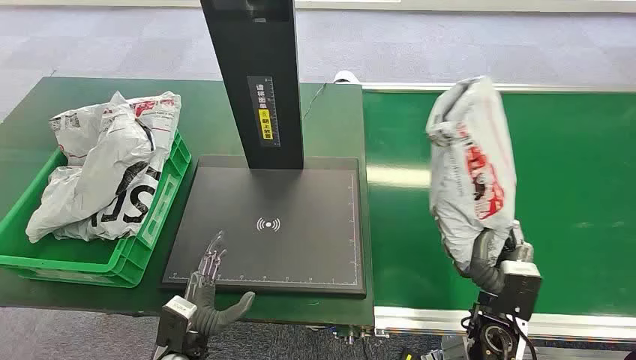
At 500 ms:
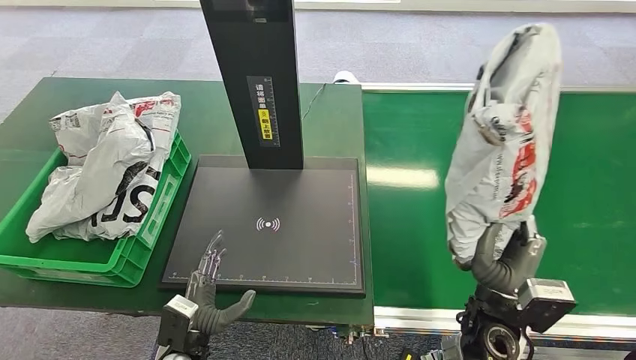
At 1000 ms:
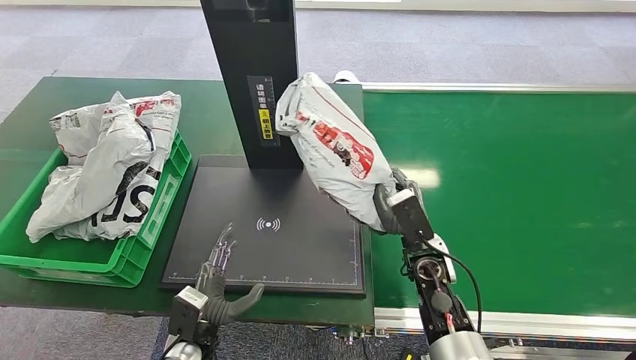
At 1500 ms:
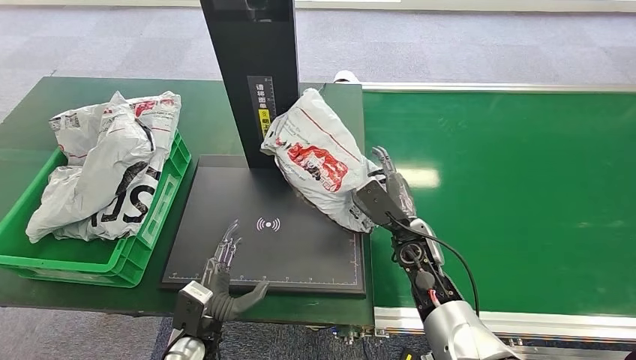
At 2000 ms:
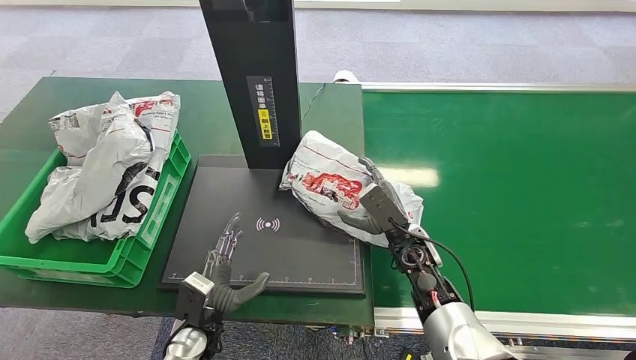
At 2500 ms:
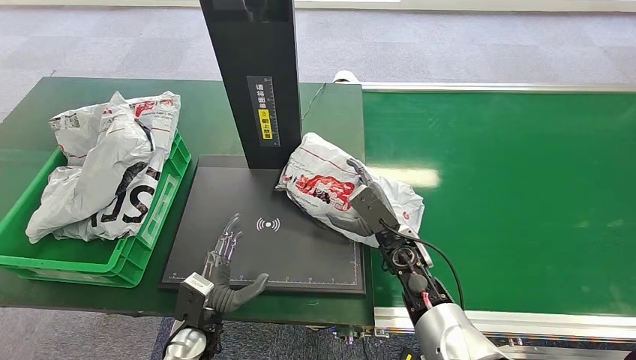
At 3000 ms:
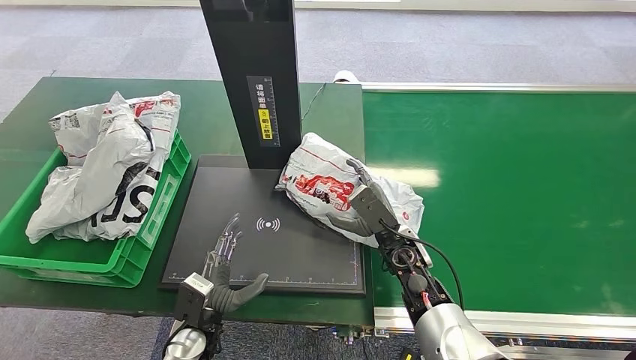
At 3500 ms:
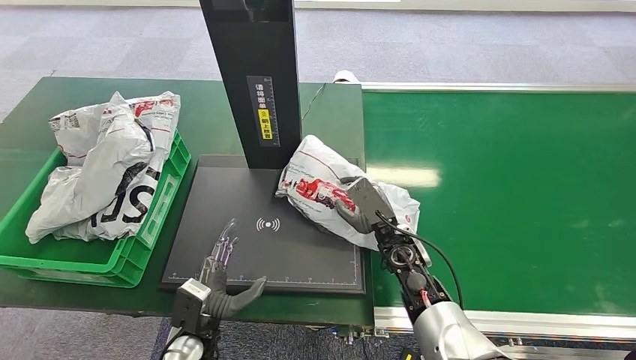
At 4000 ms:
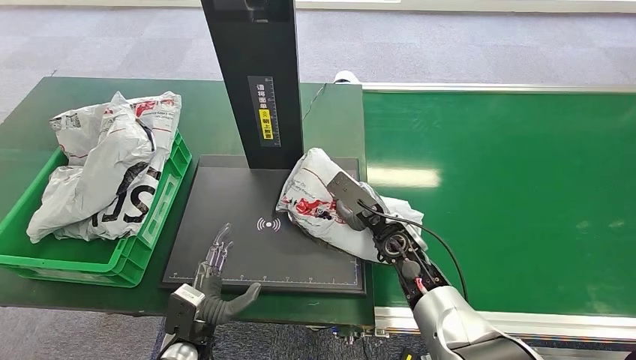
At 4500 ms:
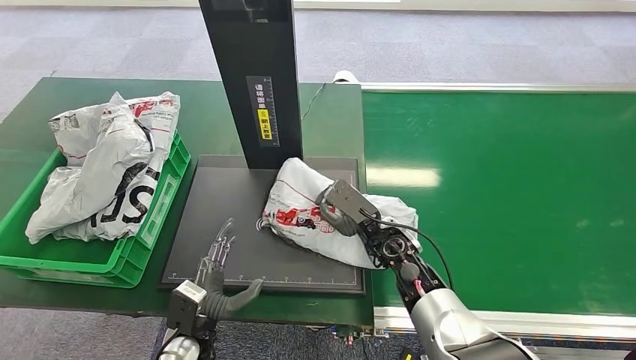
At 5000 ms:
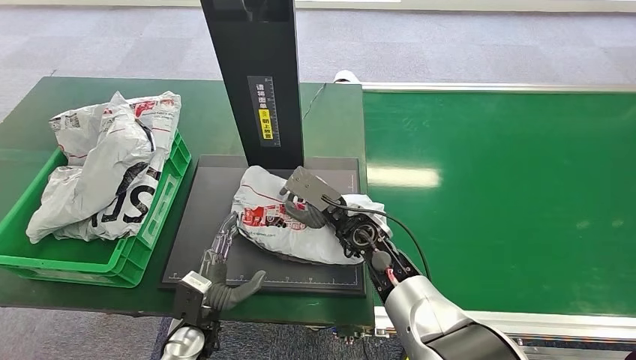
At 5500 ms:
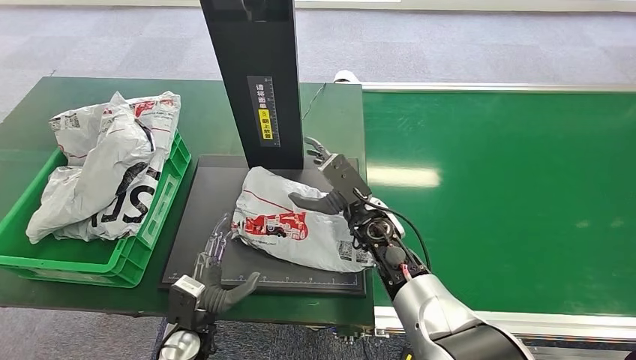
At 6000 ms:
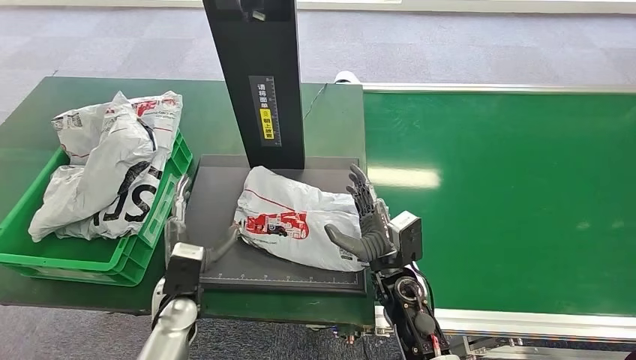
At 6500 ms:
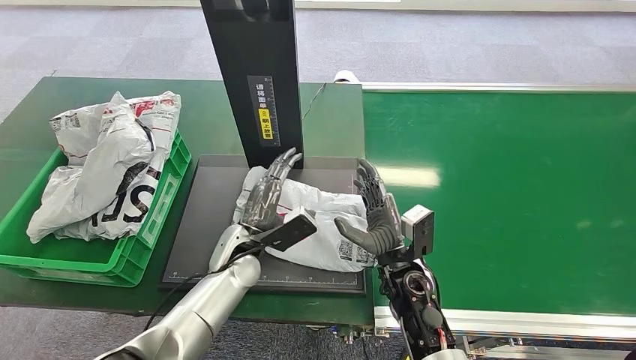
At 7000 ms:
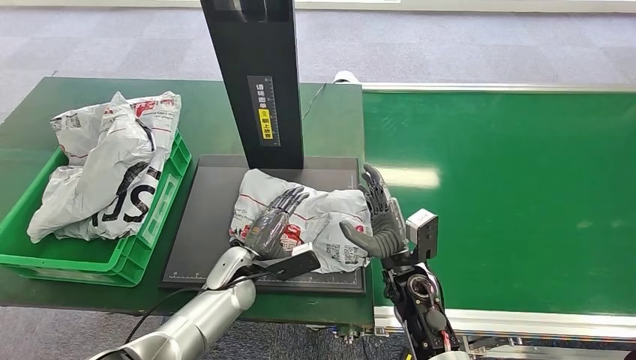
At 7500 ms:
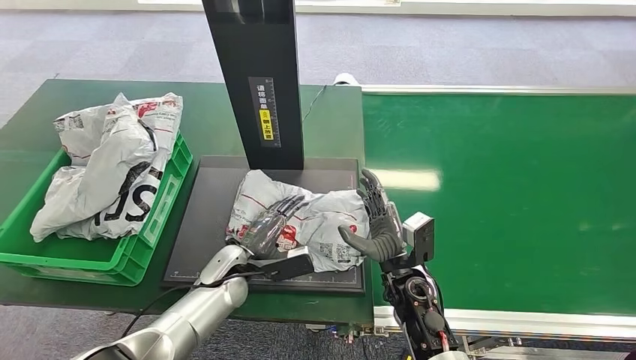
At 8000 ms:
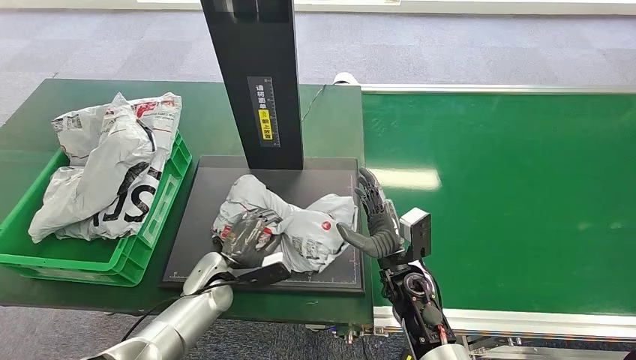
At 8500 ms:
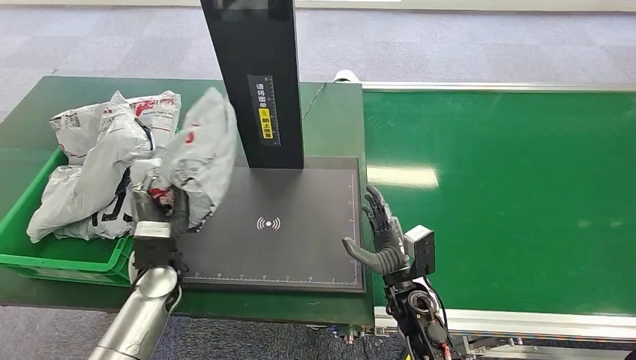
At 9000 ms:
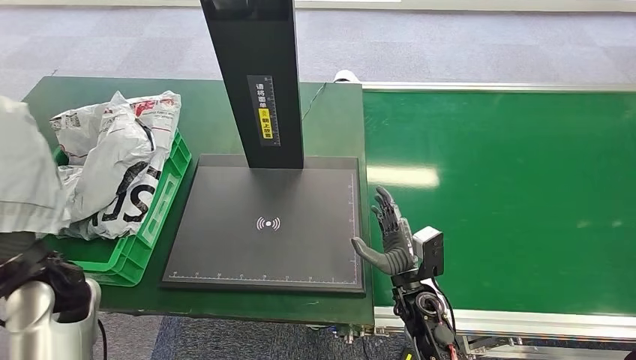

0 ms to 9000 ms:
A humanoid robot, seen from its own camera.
Task of the whole recording: Weigh the package on the weighing device and place it in the left basket.
4500 ms to 7000 ms: The left hand travels forward by approximately 10 cm. The right hand heads backward, covering approximately 5 cm.
7000 ms to 9000 ms: The left hand moves to the left and upward, some 25 cm.

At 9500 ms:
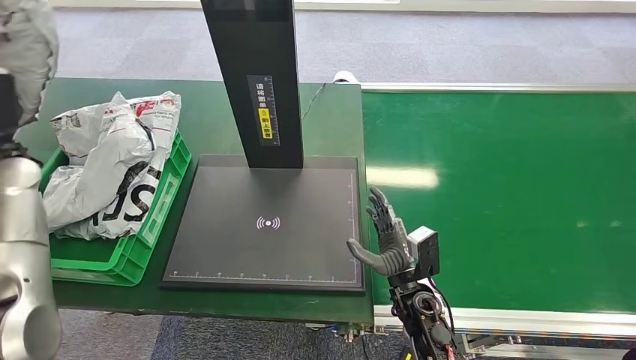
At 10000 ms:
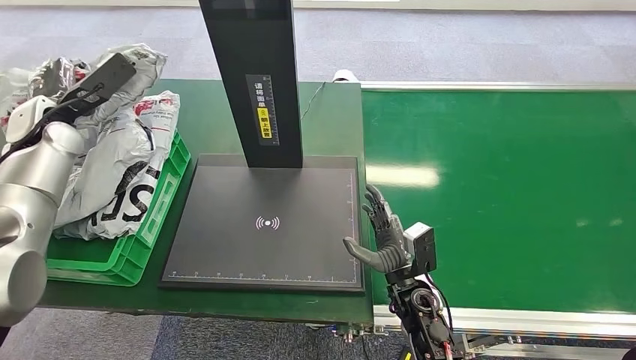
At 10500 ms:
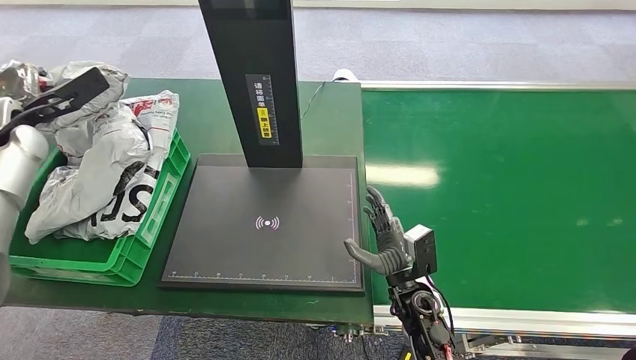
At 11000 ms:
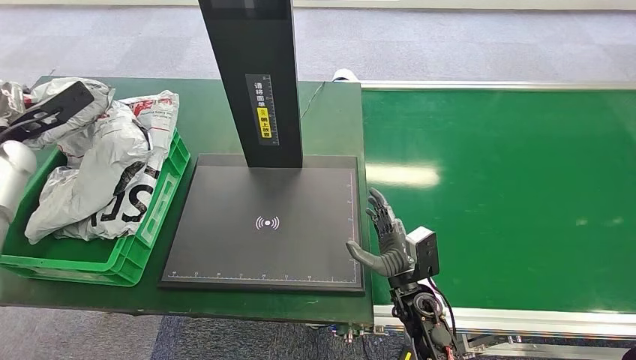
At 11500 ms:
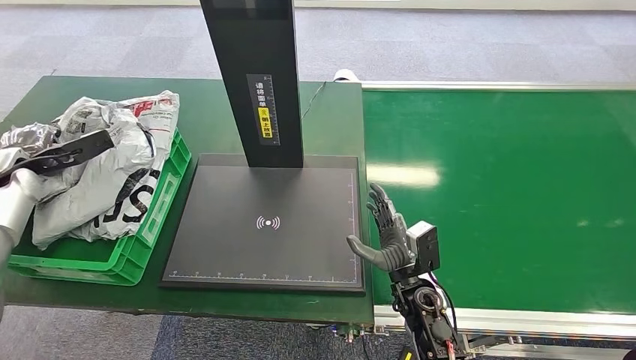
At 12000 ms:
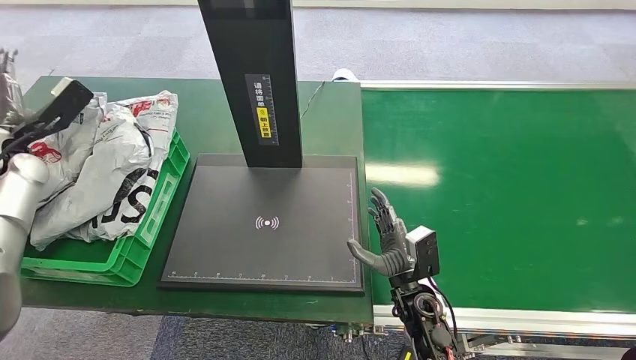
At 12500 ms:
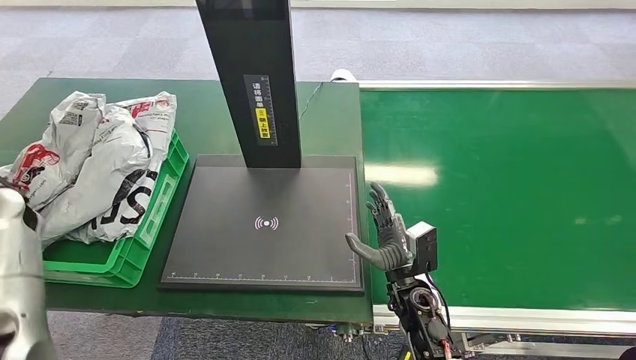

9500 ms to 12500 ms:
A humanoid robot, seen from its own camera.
Task of the whole recording: Weigh the package on the weighing device and place it in the left basket.
9500 ms to 11000 ms: The left hand heads to the left, covering some 5 cm.
11000 ms to 12500 ms: The left hand travels backward and downward by some 10 cm.

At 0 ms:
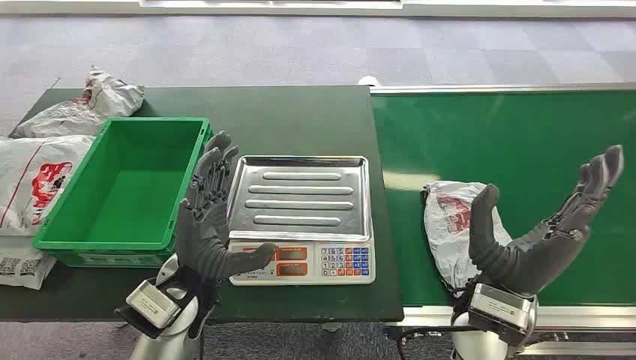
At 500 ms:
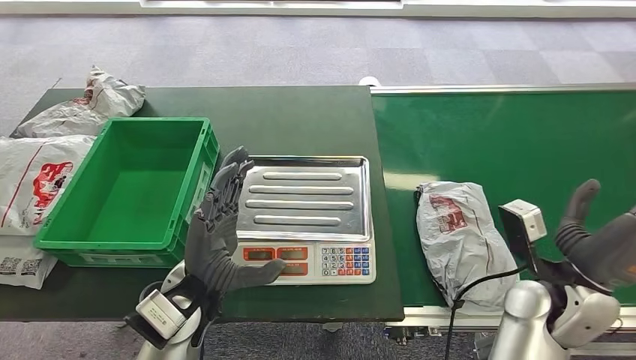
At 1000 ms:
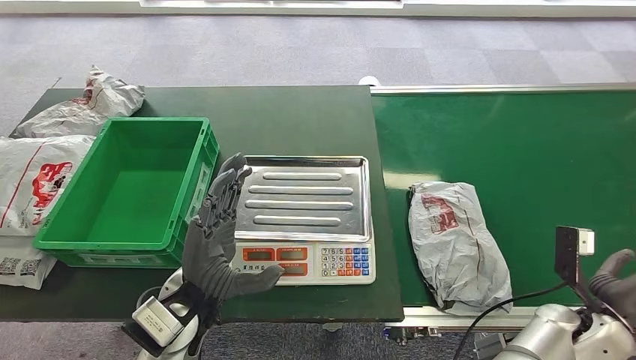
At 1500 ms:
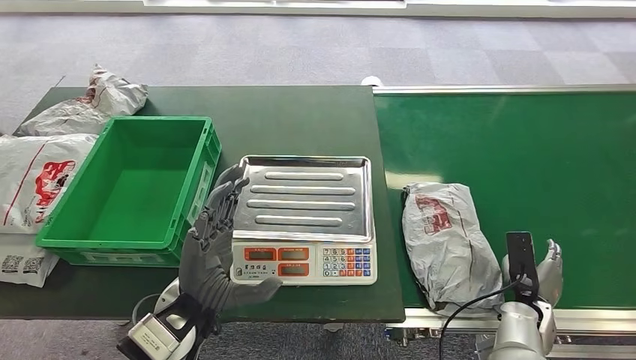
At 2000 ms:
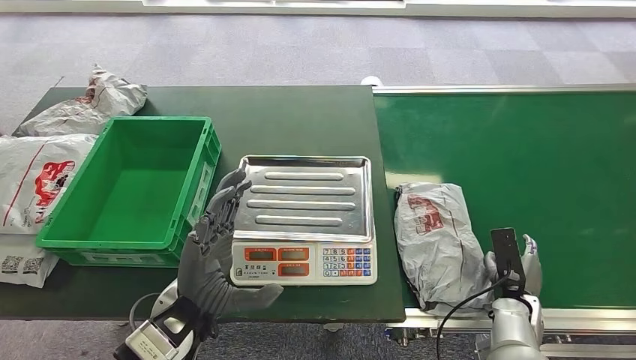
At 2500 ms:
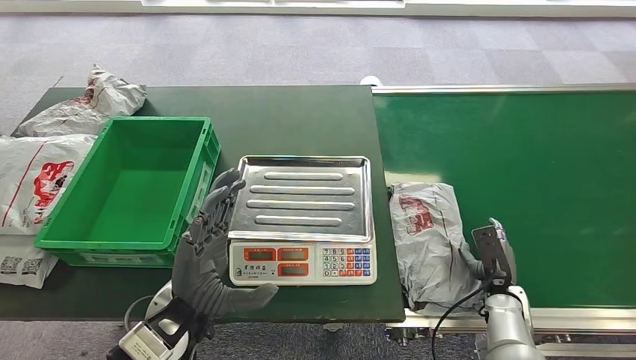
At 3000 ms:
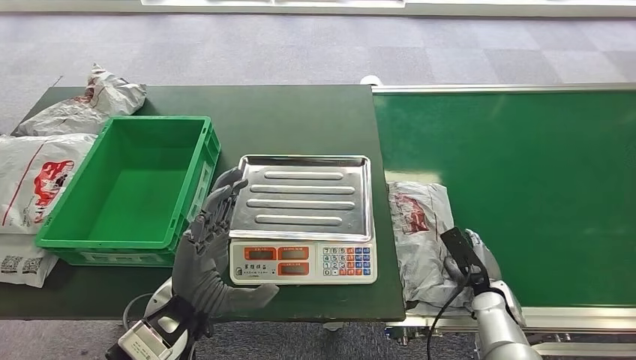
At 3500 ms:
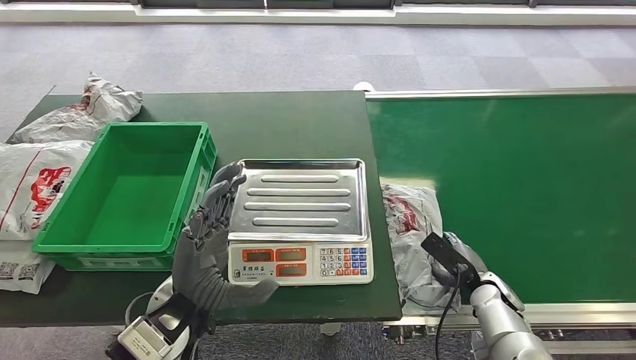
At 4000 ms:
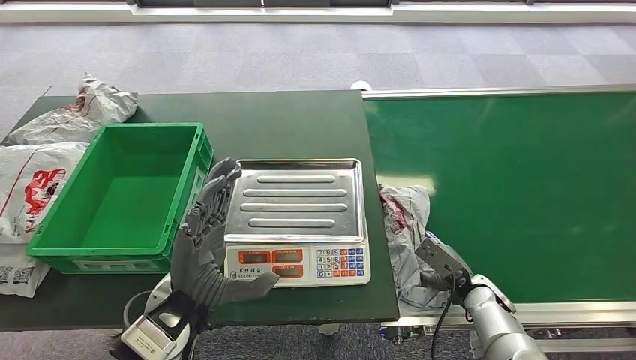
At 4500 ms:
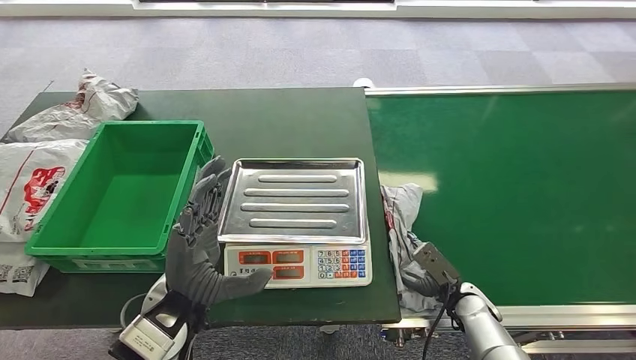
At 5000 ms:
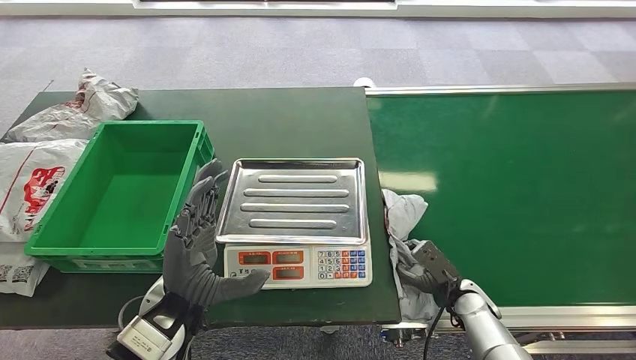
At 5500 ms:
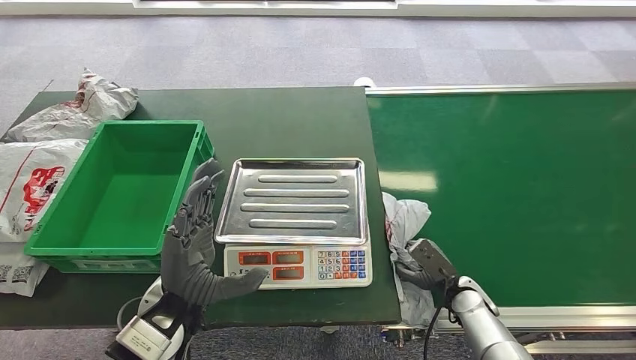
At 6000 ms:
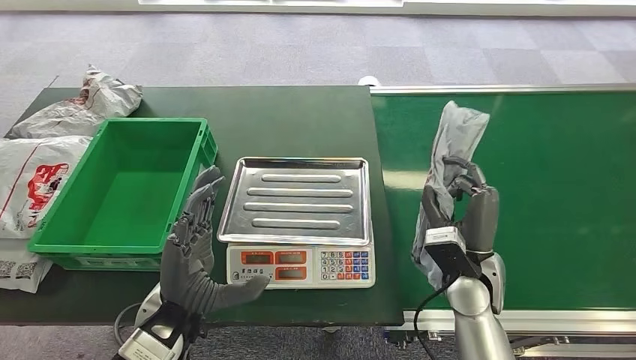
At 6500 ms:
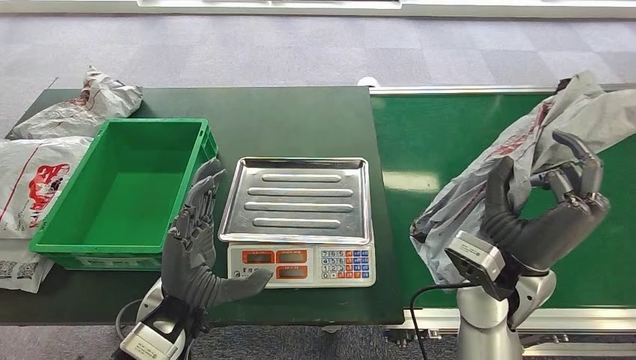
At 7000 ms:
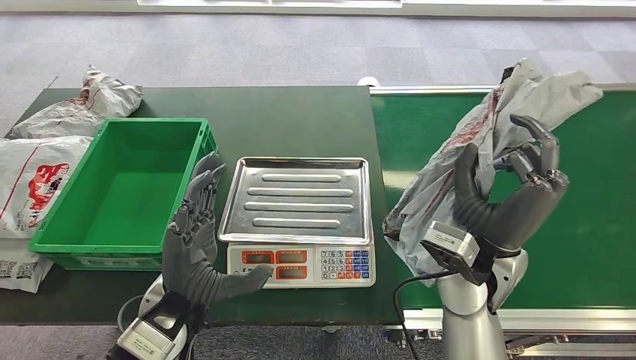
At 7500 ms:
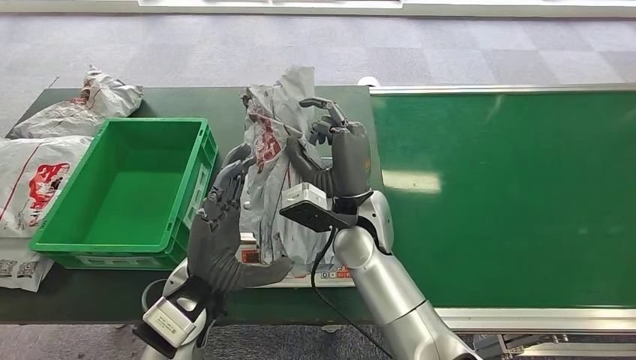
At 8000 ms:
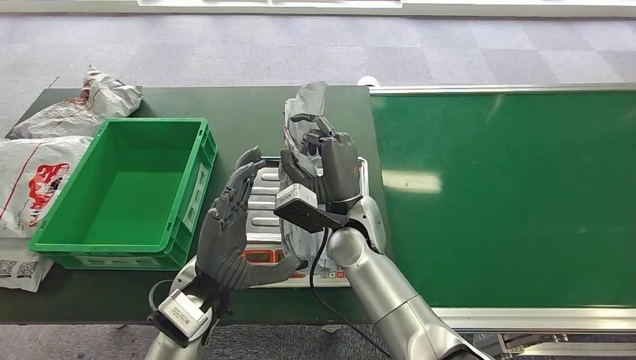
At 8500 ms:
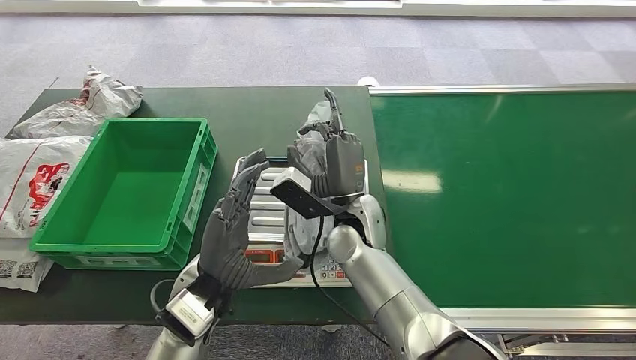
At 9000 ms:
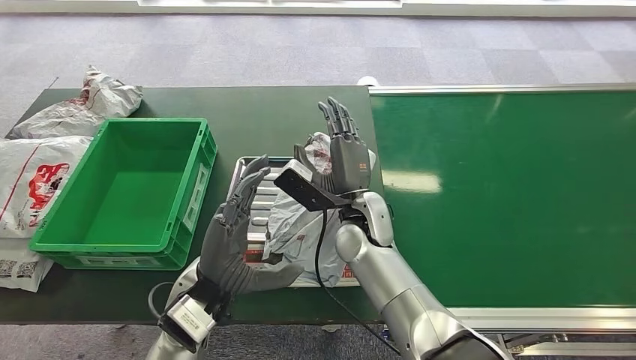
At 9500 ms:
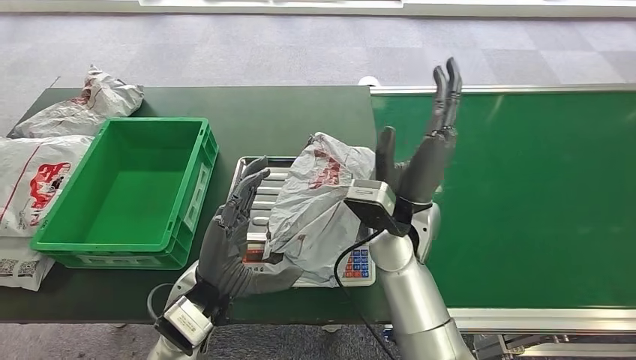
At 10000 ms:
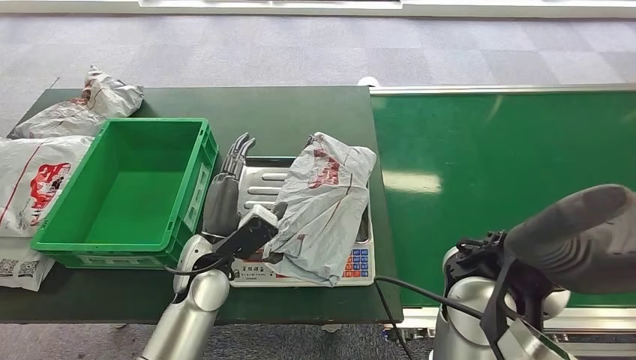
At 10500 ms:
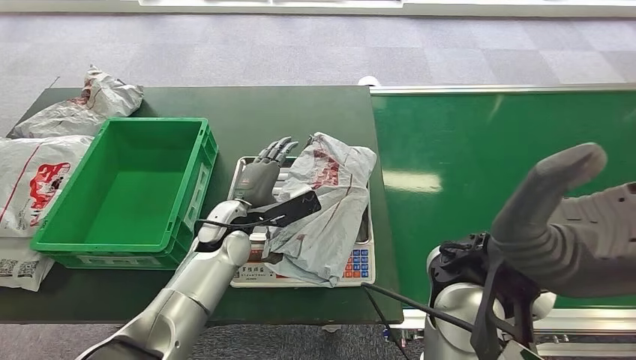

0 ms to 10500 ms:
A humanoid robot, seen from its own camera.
Task of the whole recording: Weigh the package on the weighing device and place it in the left basket.
Step, 0 ms to 6500 ms: Pick up the package from the conveyor belt.
Step, 7000 ms to 9500 ms: Place the package onto the inbound machine.
